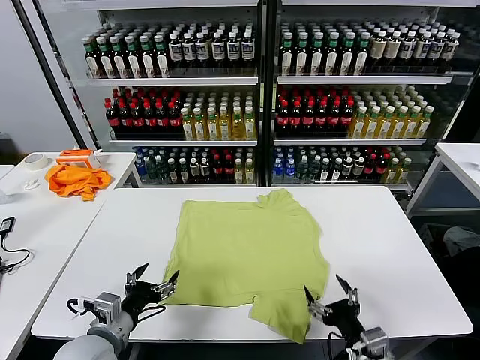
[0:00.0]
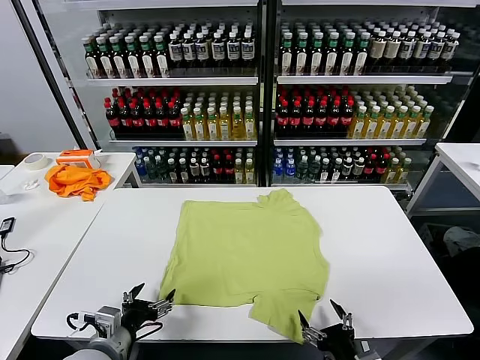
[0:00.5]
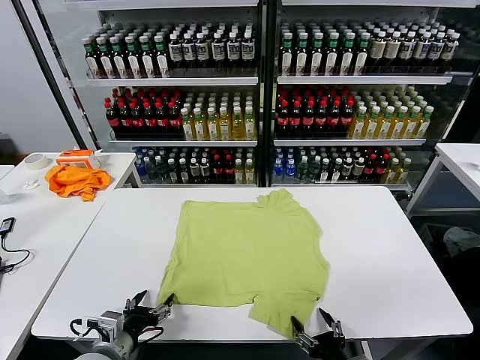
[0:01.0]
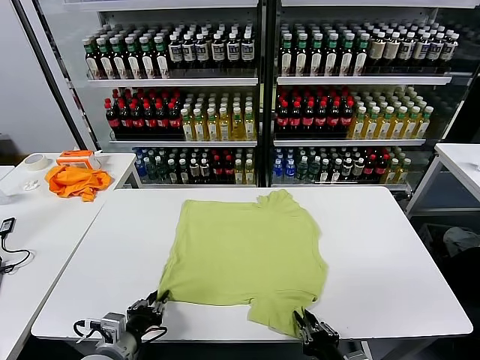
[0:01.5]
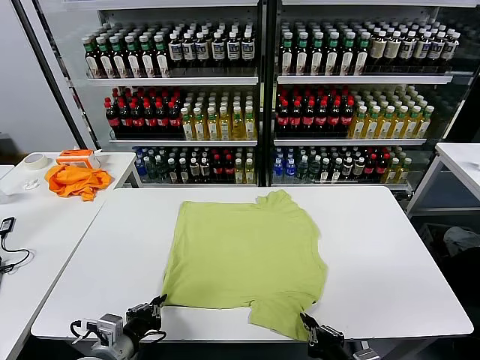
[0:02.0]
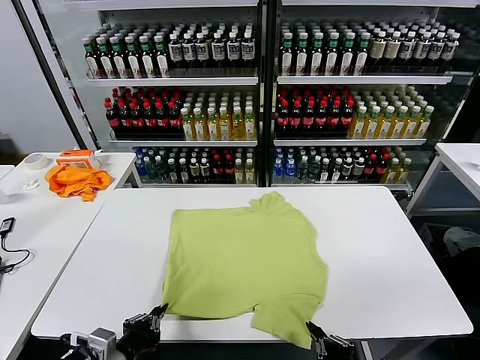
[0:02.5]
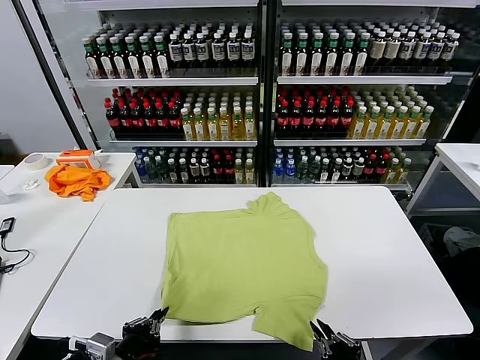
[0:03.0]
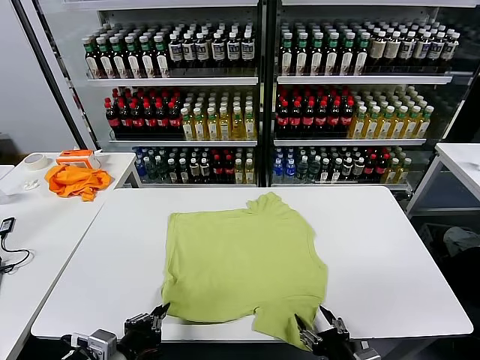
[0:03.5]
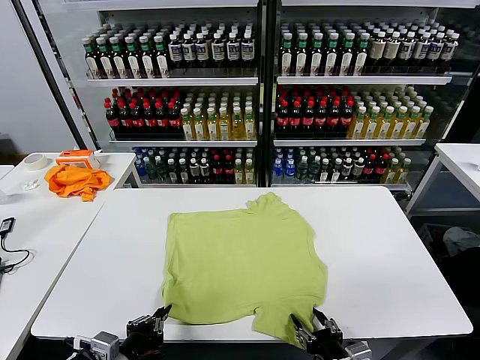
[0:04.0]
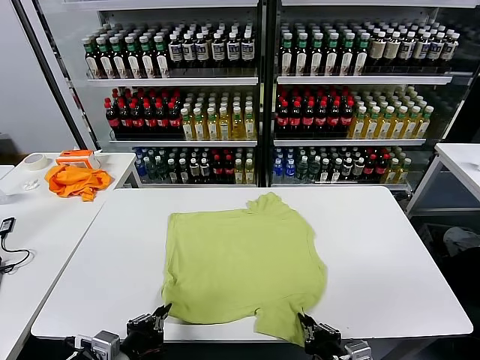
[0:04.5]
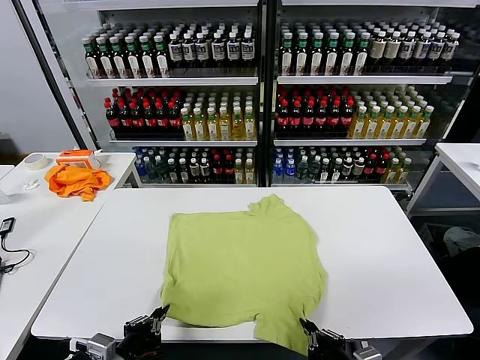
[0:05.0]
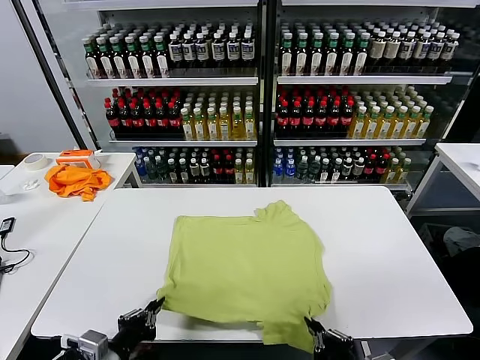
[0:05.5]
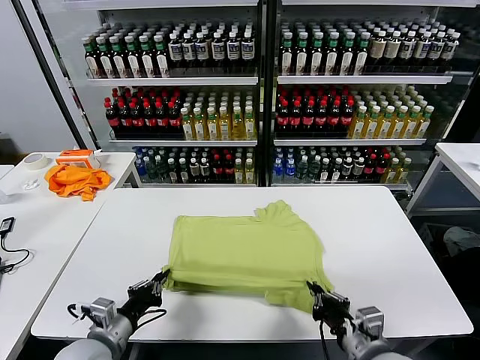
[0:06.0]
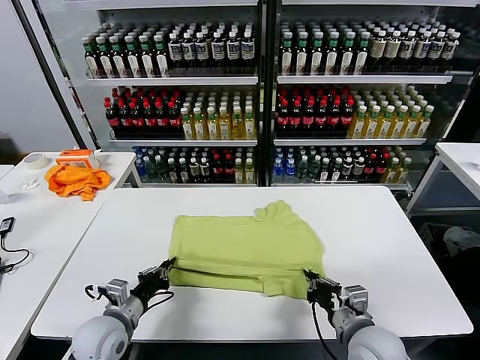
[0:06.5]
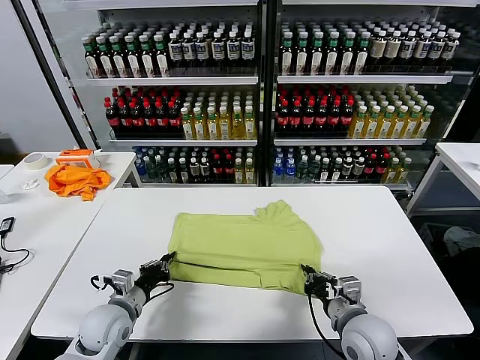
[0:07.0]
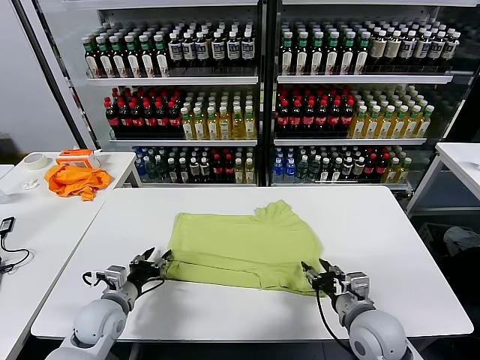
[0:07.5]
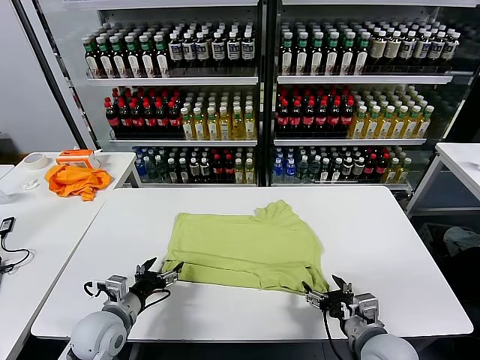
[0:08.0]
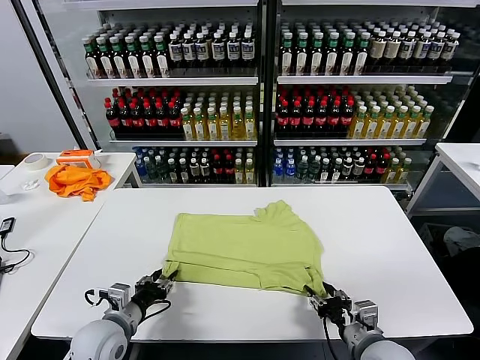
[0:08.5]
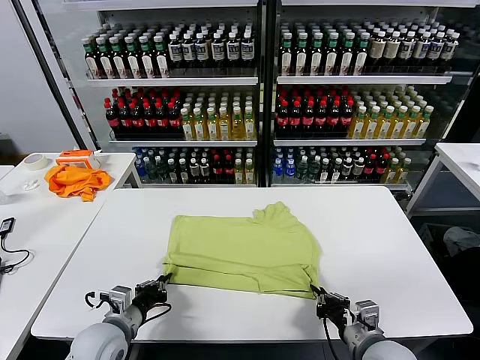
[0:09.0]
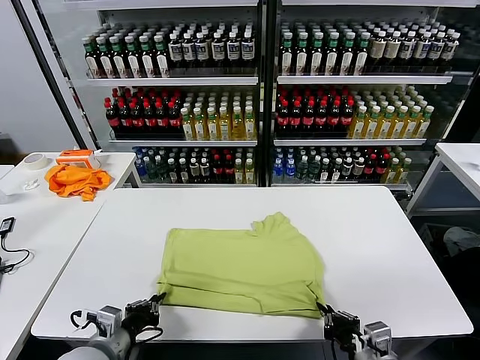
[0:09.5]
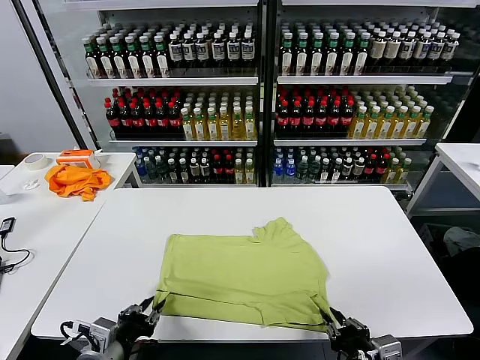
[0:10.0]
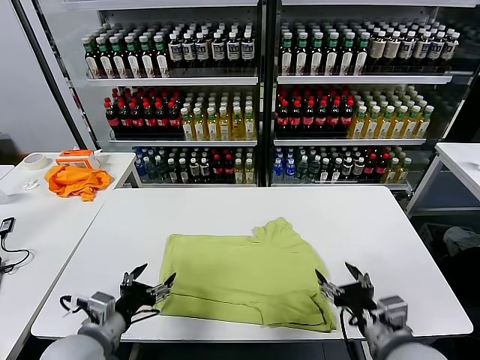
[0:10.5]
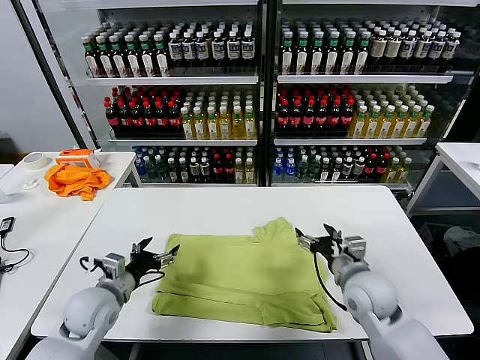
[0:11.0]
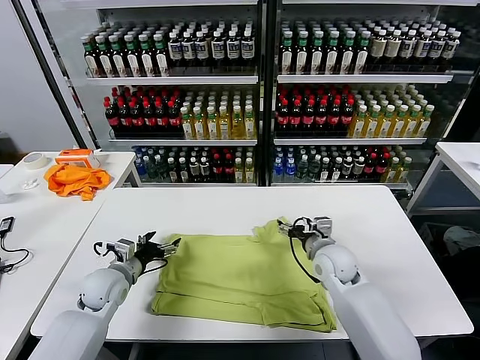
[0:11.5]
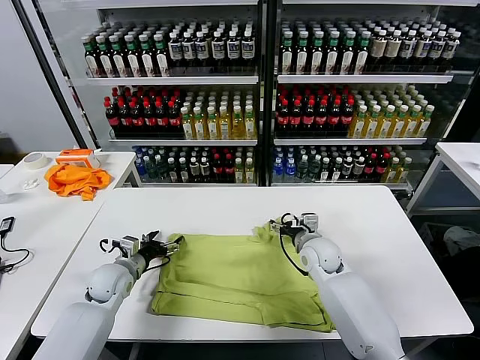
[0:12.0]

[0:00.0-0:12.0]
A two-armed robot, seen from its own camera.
Task of the whole recording: fold and organize the clothes.
Step, 0:00.0 to 0:01.5: use both grippers simultaneously to clamp the lower edge of the clothing fabric.
Step, 0:02.0 to 0:07.0: use both grippers to drag the lower edge of the fabric forward and fold it over the upper edge.
Step, 0:07.5 to 0:10.0: Drag the clothes downward with both gripper.
0:02.0 to 0:04.0: The right gripper opens.
0:04.0 to 0:06.0: Both grippers move forward, about 5 cm. The right gripper closes up.
0:06.0 to 0:08.0: The left gripper shifts some 5 cm forward, and opens up. Meanwhile the right gripper opens its fingers.
0:08.0 to 0:10.0: The left gripper travels backward by about 10 cm, and closes its fingers, while the right gripper shifts roughly 10 cm backward and upward, and closes its fingers.
0:10.0 to 0:12.0: Both grippers move forward, about 30 cm. The left gripper opens. Meanwhile the right gripper opens up.

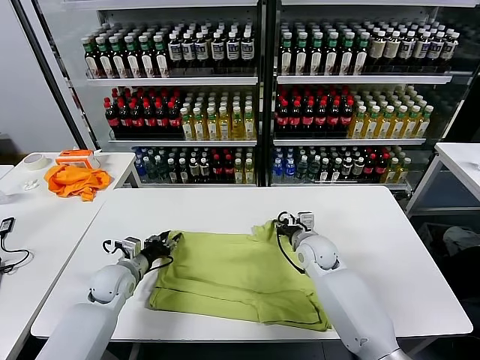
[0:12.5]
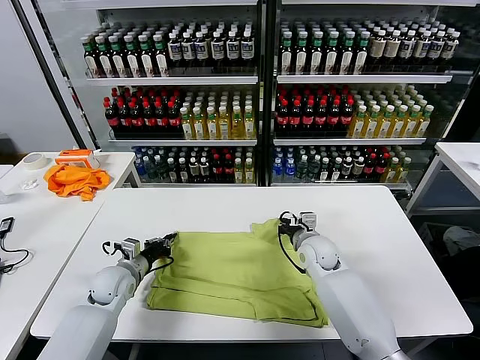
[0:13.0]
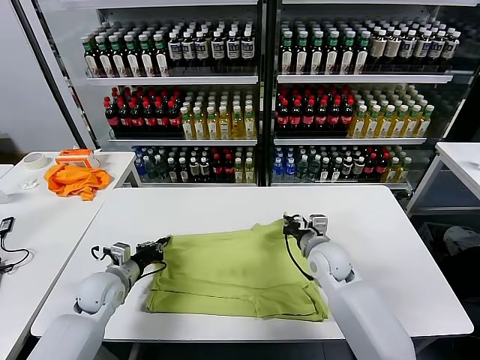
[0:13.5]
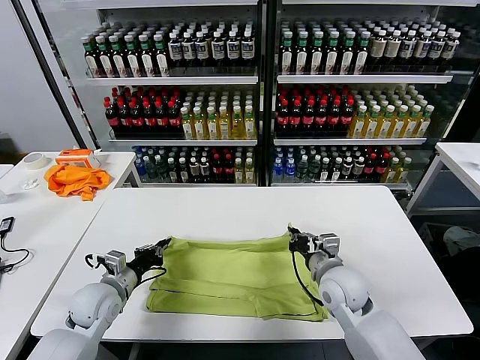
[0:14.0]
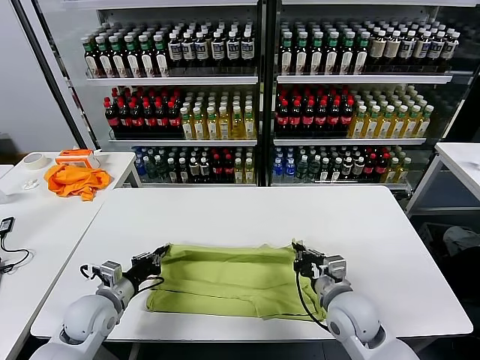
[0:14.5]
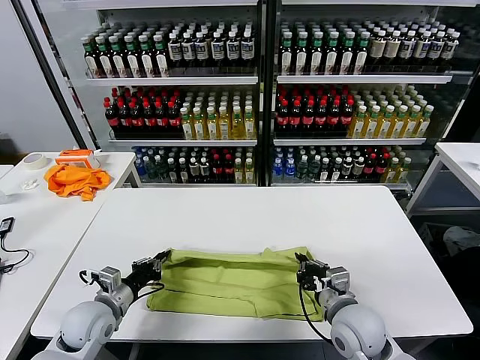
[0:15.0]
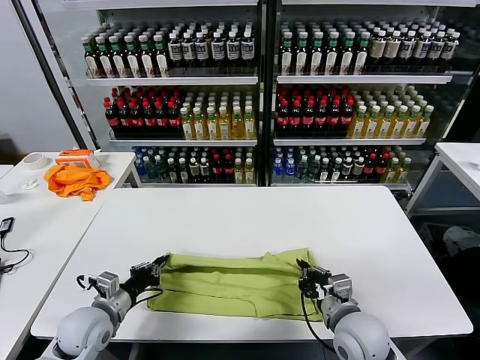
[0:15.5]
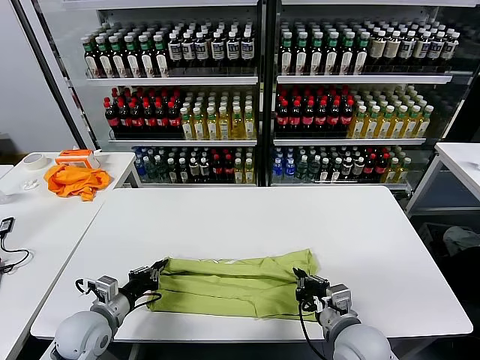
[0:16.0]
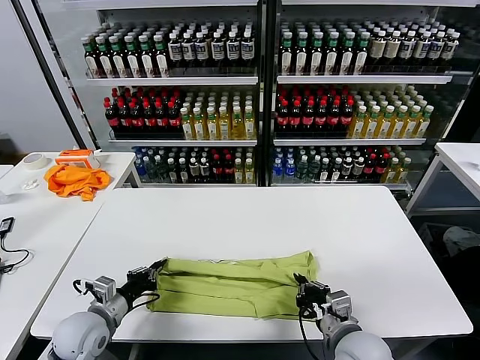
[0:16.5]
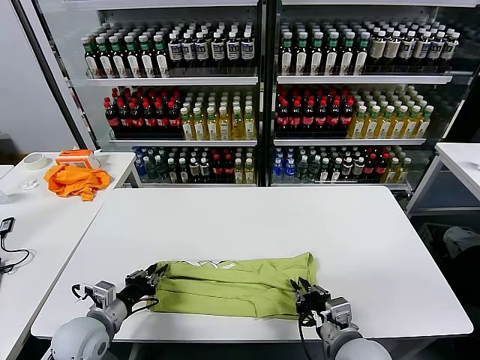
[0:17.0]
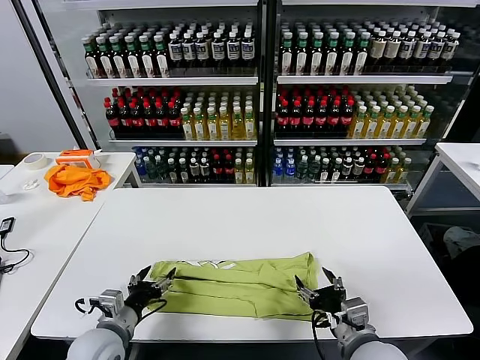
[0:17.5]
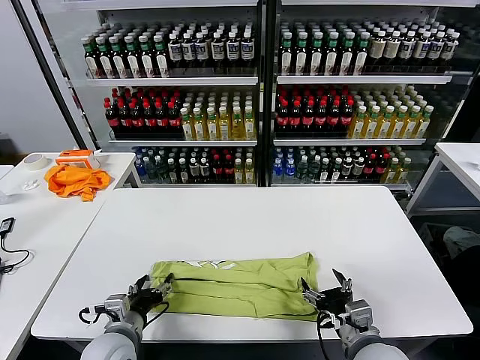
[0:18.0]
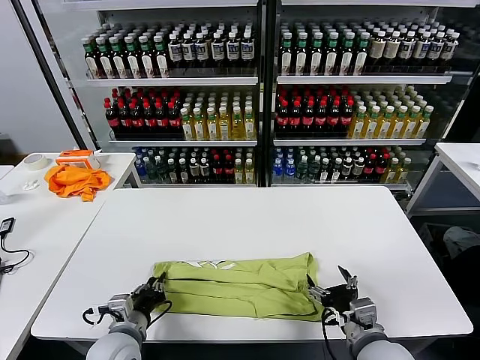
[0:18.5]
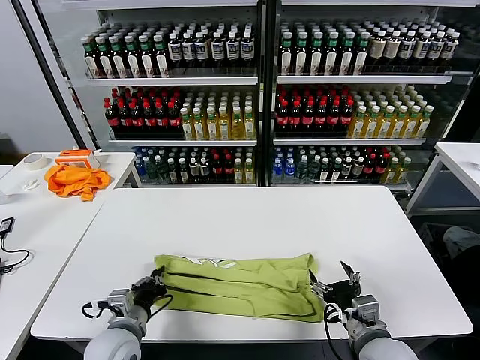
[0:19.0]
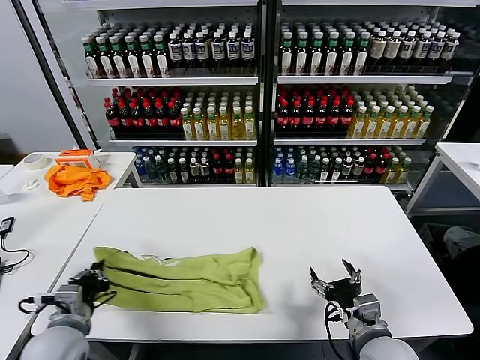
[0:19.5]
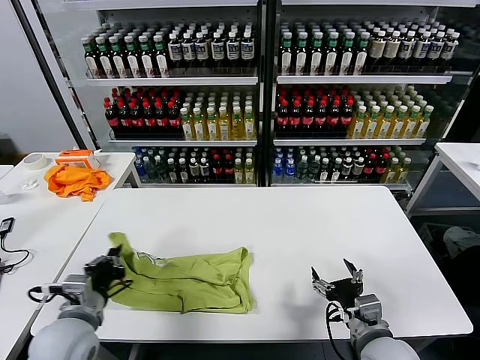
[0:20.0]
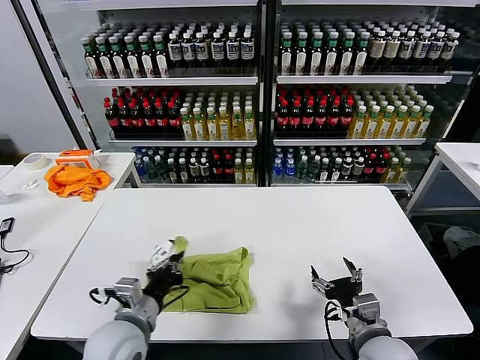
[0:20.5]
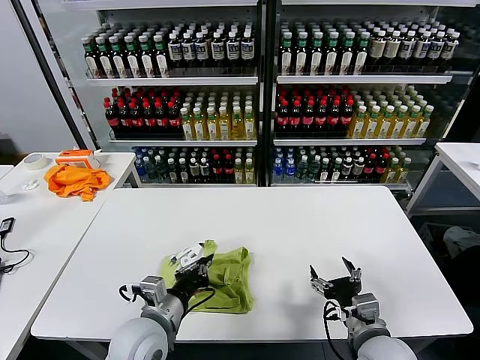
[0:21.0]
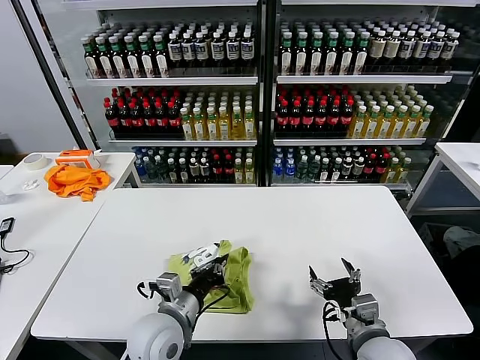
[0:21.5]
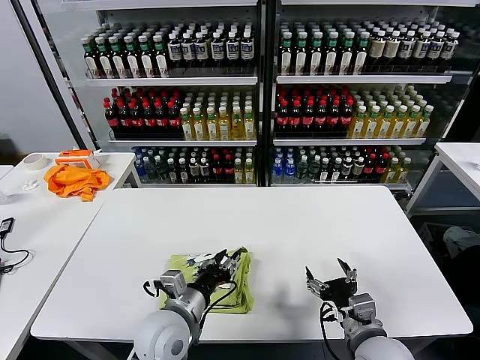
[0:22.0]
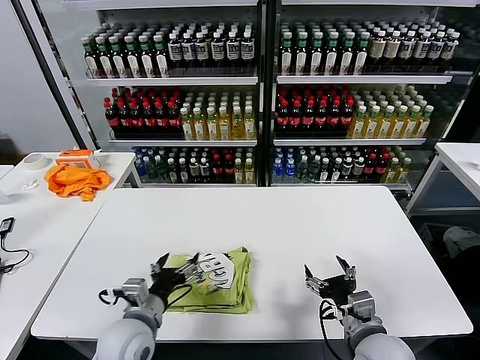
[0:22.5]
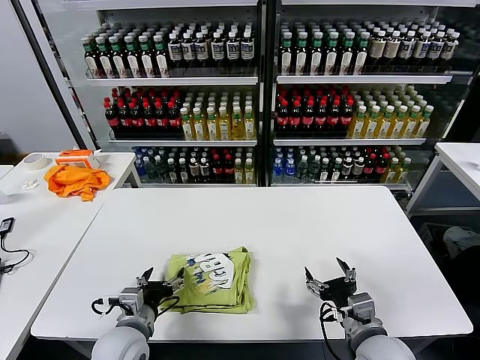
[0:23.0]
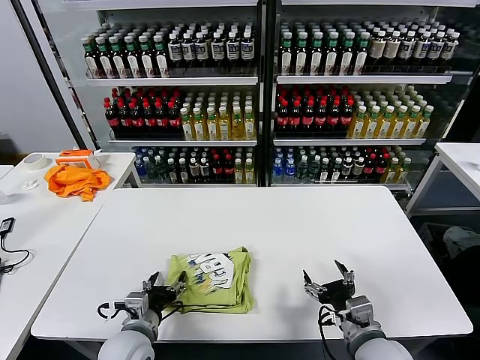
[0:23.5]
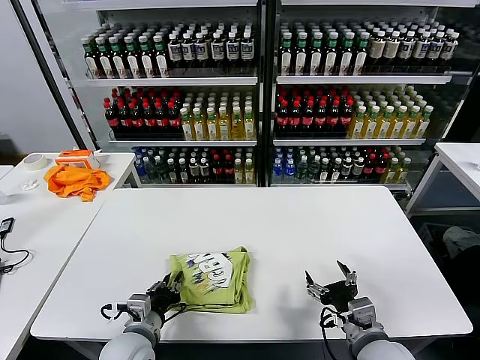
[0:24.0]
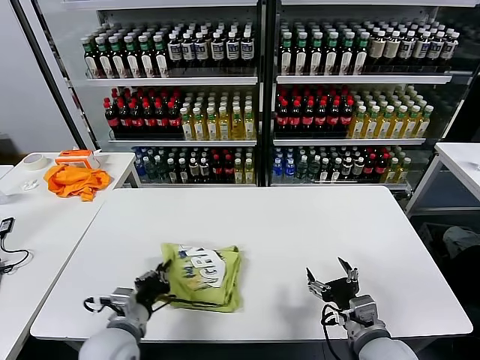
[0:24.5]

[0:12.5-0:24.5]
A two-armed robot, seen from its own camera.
Task of the whole recording: fold and organize the clothes.
Step, 0:13.0 to 0:17.0: use both grippers to drag the upper edge of the fabric backward and fold it over the lower edge.
Step, 0:17.5 to 0:18.5: use the left gripper to clamp the left edge of the fabric.
Step, 0:19.0 to 0:22.0: use the left gripper to drag the left edge of the fabric to the left and folds it over the right edge.
0:12.5 to 0:14.5: The left gripper shifts approximately 10 cm backward, and closes its fingers; the right gripper is displaced backward by about 20 cm.
0:14.5 to 0:16.5: The right gripper shifts roughly 5 cm backward.
0:16.5 to 0:18.5: The left gripper travels to the right by approximately 10 cm, and opens and closes again. Meanwhile the right gripper opens its fingers.
0:18.5 to 0:20.5: The left gripper travels upward by roughly 10 cm, and reaches roughly 10 cm to the left, then returns.
0:20.5 to 0:22.5: The left gripper reaches about 10 cm to the right, then returns, and opens.
0:22.5 to 0:24.5: The left gripper closes.

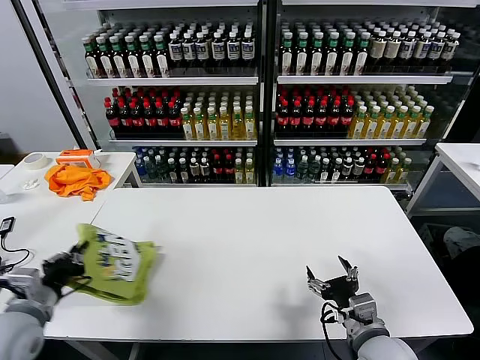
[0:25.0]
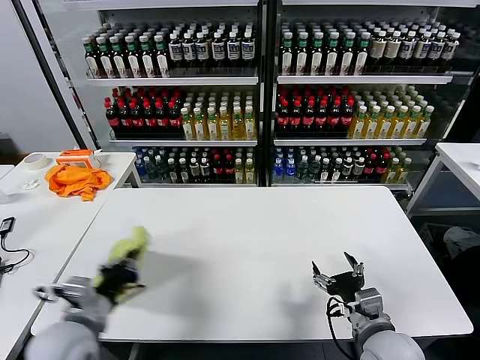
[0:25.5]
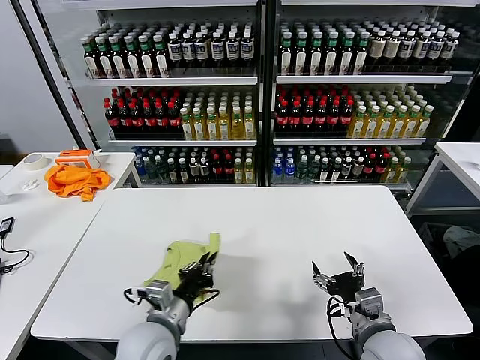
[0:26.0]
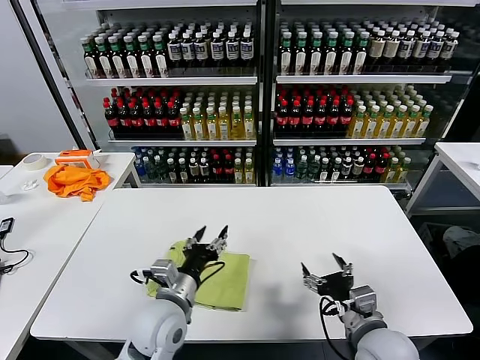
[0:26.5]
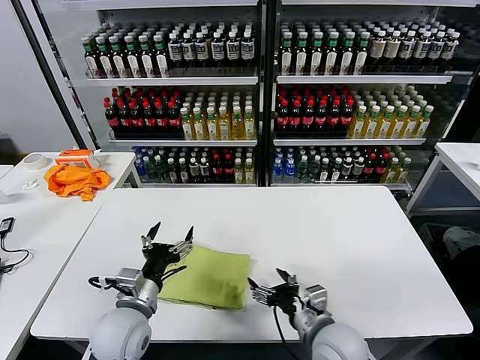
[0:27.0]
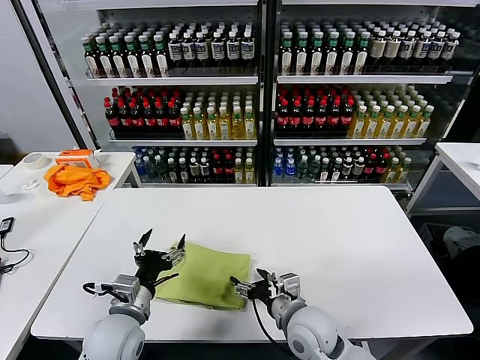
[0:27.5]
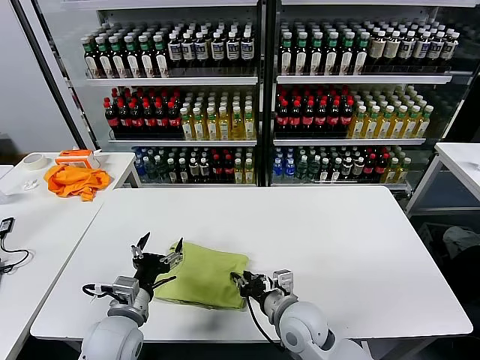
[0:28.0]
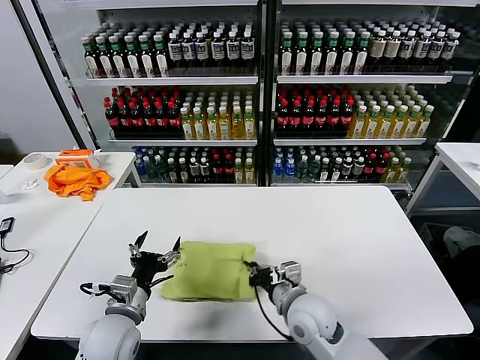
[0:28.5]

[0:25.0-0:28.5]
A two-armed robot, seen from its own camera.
Task of the whole recording: fold and organize the clothes.
0:25.0 to 0:27.0: The left gripper moves to the right, roughly 15 cm, and opens. The right gripper is displaced to the left by approximately 5 cm.
0:27.0 to 0:28.5: The right gripper travels forward by roughly 5 cm, and closes up.
